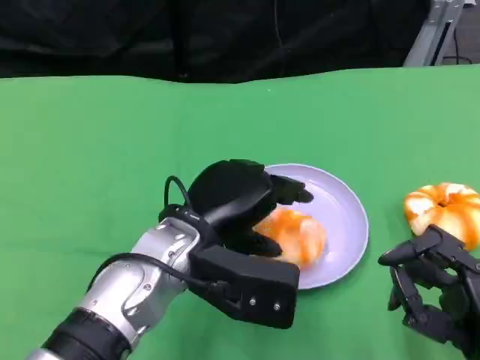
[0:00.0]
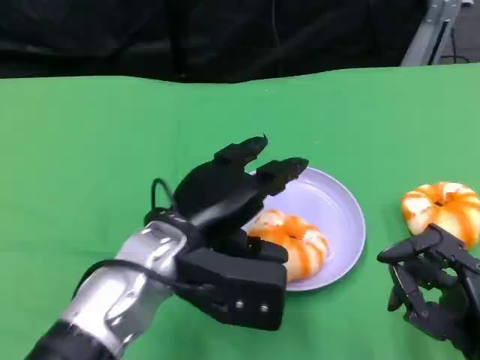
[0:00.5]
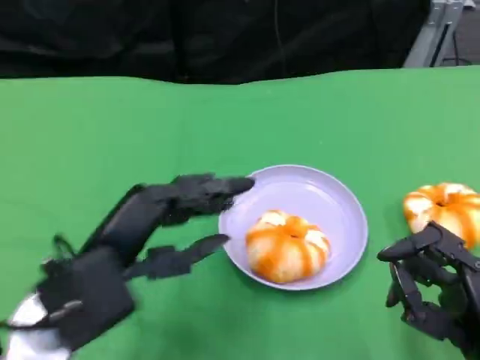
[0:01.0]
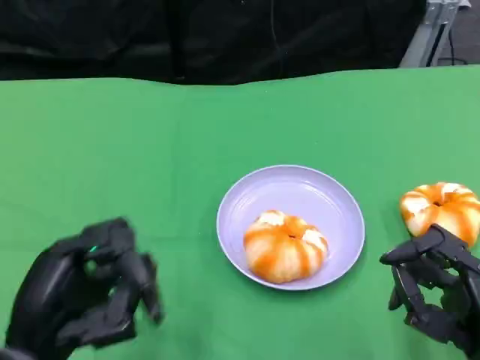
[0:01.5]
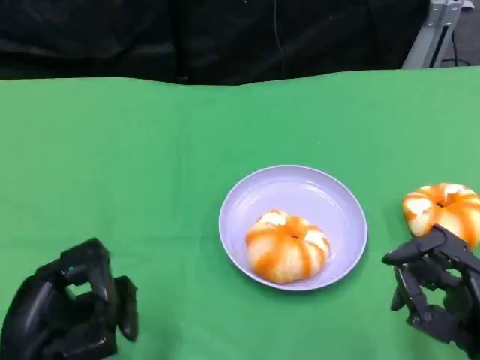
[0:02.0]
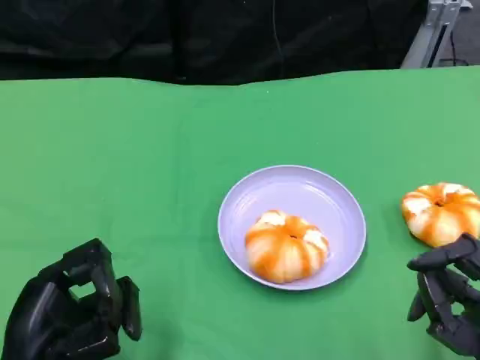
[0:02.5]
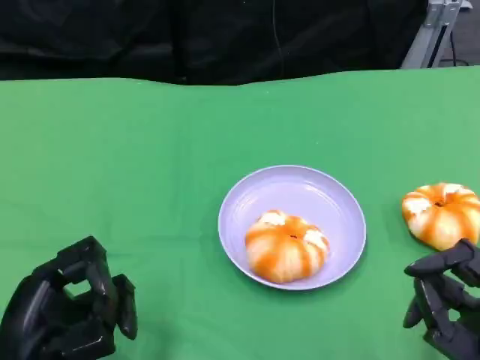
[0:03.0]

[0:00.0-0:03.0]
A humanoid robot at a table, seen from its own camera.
Task of the whole recording: Grasp the bread from the table and place it into the plate.
0:00.0 to 0:01.5: The left hand goes roughly 20 cm to the left and backward.
0:01.5 to 0:03.0: The hands make only small movements.

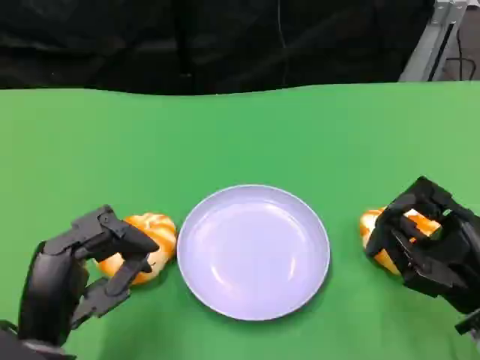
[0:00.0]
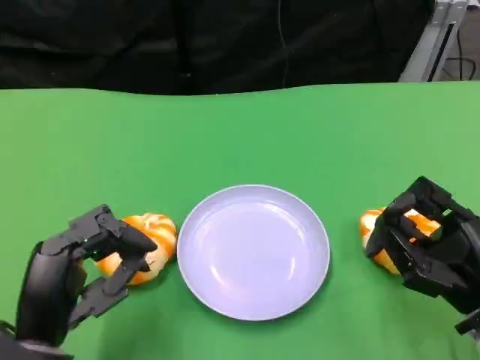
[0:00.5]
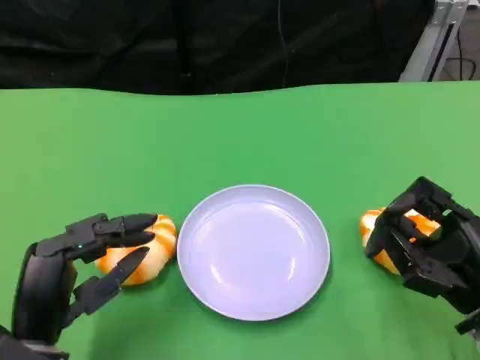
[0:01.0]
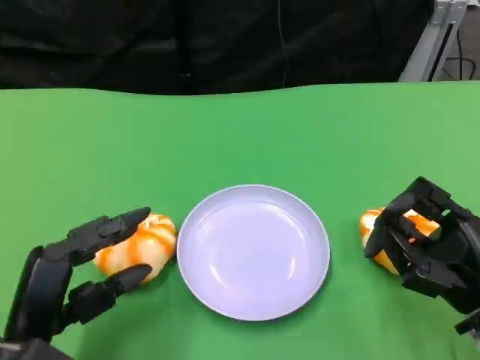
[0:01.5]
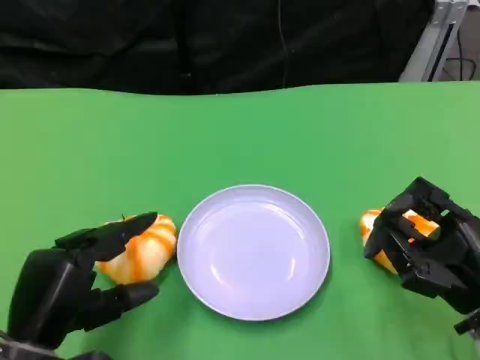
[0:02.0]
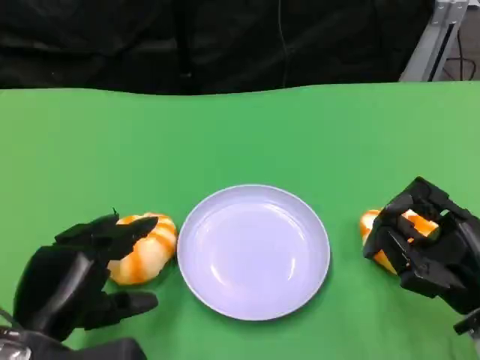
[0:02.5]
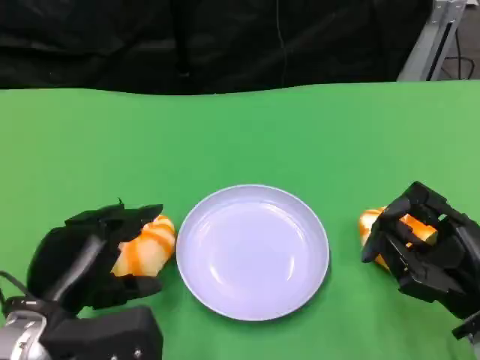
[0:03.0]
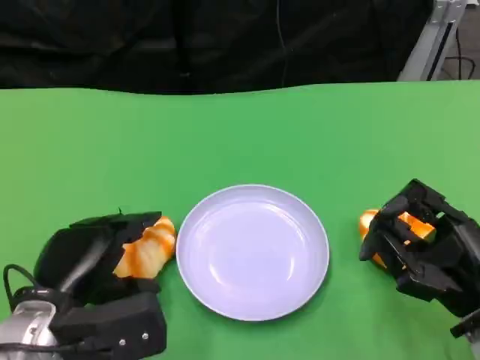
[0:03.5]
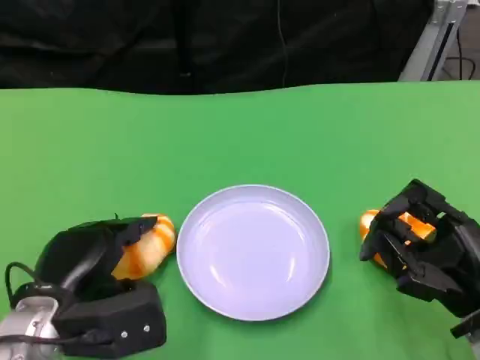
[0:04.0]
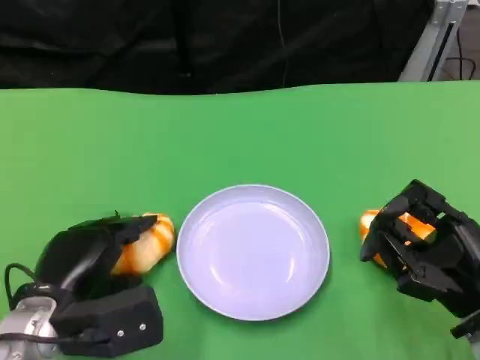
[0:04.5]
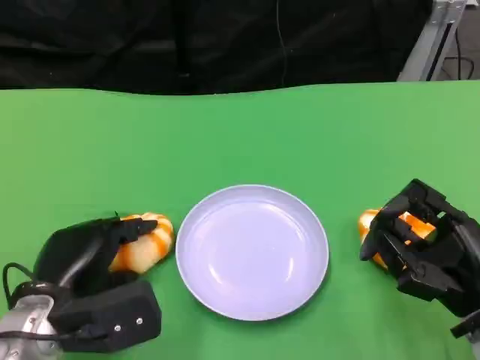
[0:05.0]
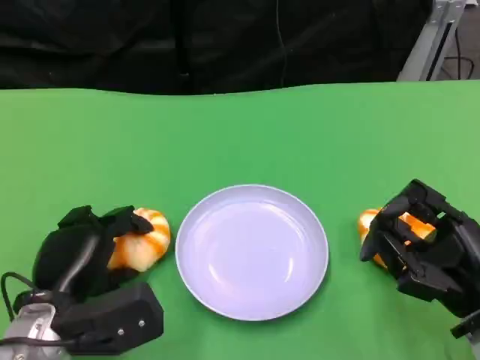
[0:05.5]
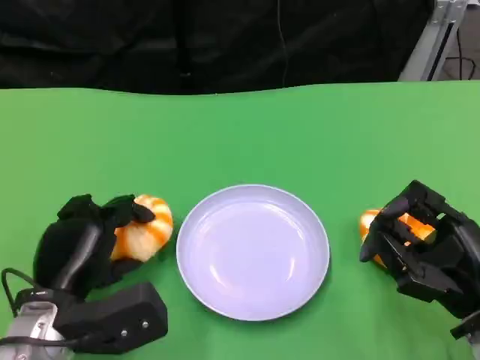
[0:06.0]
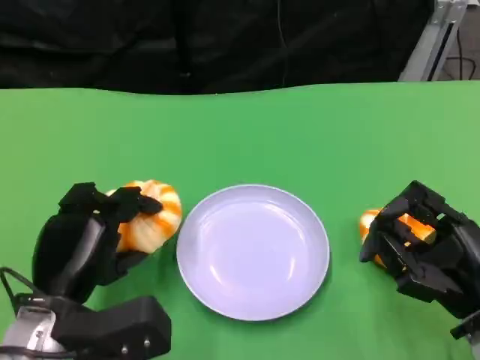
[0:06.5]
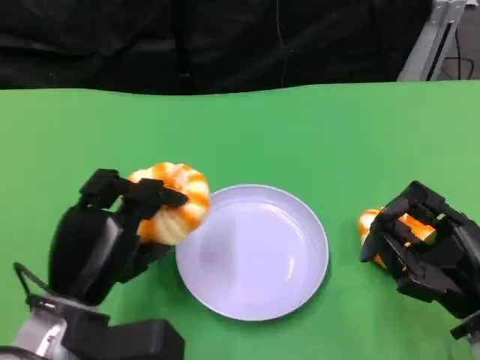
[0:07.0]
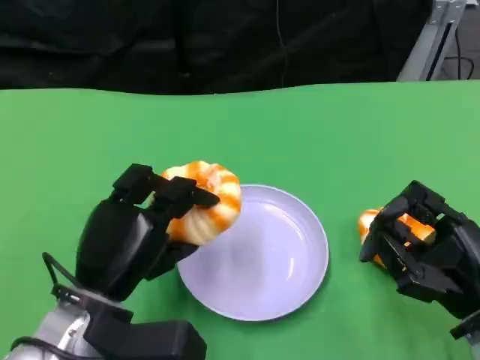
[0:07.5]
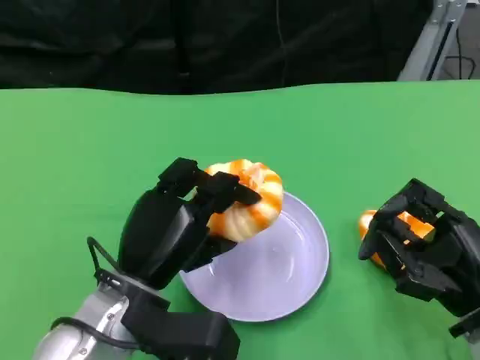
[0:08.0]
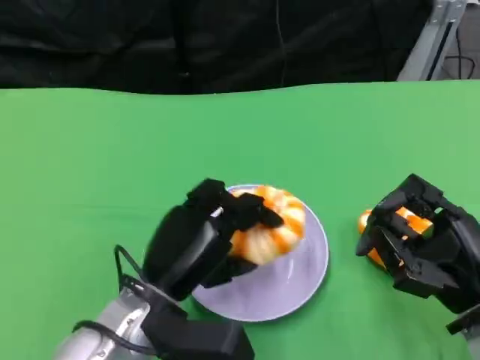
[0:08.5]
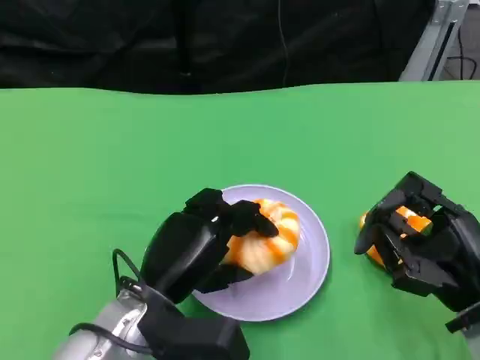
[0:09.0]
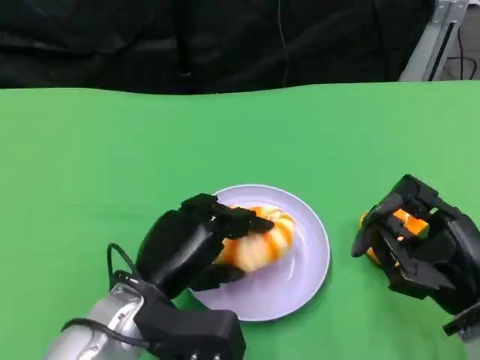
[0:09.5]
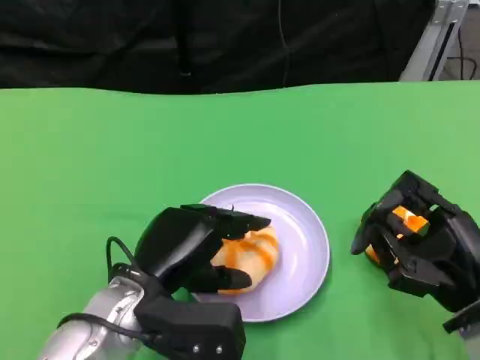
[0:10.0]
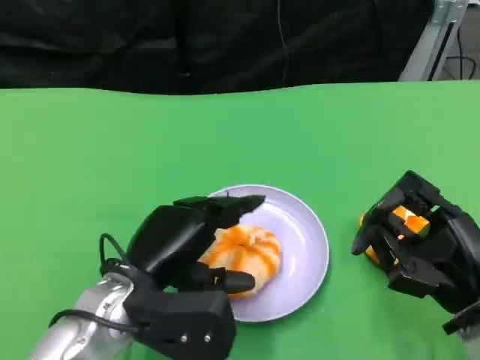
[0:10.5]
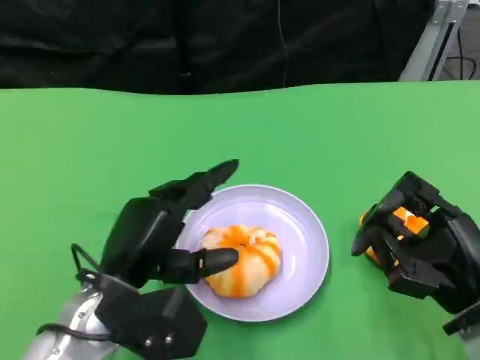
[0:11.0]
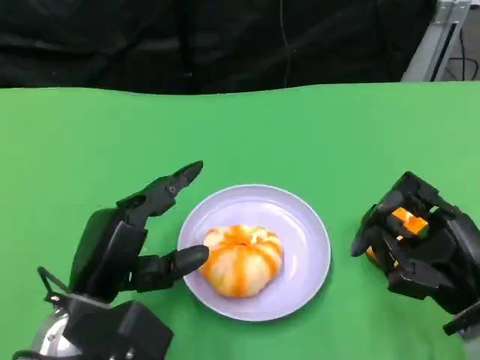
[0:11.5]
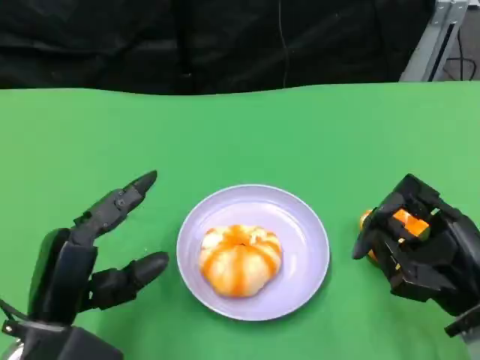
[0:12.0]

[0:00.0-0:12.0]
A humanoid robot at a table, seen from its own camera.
Task of the whole recording: Grasp the bread from the table and place it into the plate.
0:02.0 to 0:04.0: The left hand goes some 5 cm forward.
0:04.0 to 0:06.0: The hands stay close to where they were, moving slightly.
0:06.0 to 0:08.0: The left hand goes some 5 cm to the right.
0:08.0 to 0:10.0: The hands stay close to where they were, moving slightly.
0:10.0 to 0:12.0: The left hand moves to the left, some 10 cm.

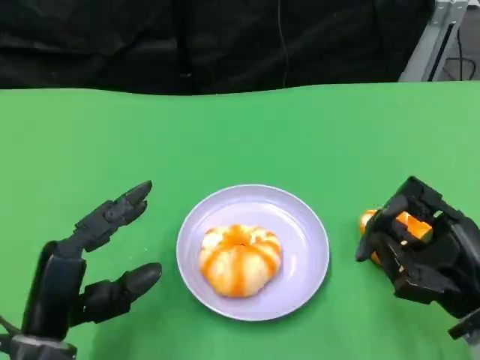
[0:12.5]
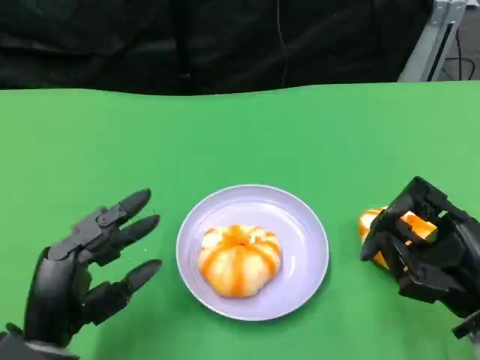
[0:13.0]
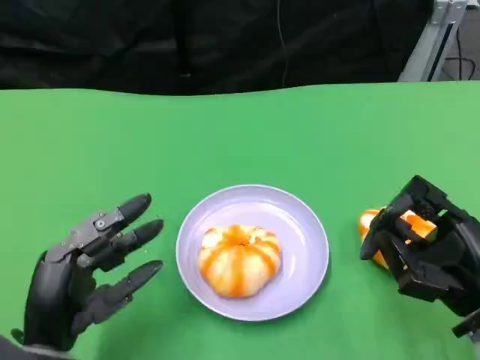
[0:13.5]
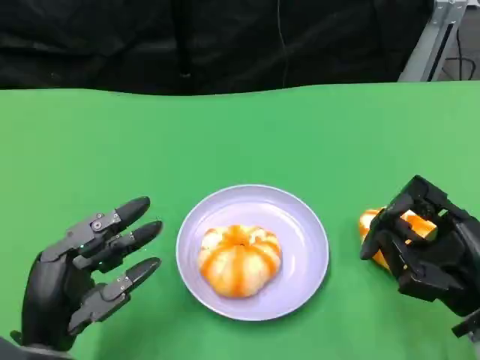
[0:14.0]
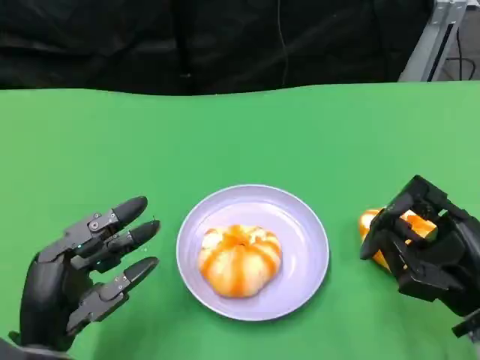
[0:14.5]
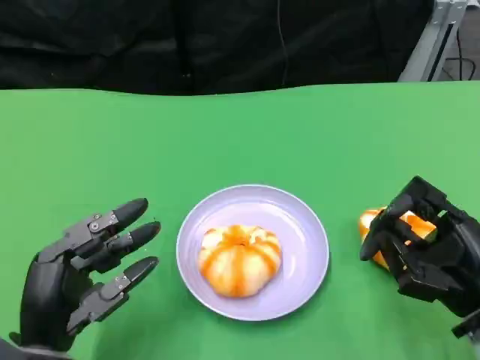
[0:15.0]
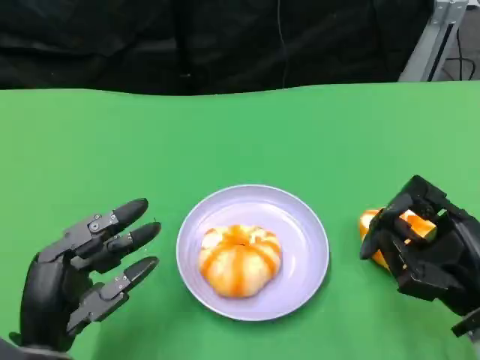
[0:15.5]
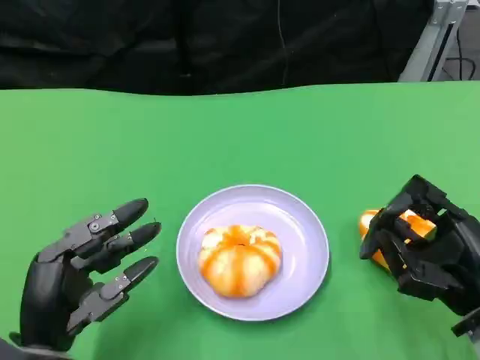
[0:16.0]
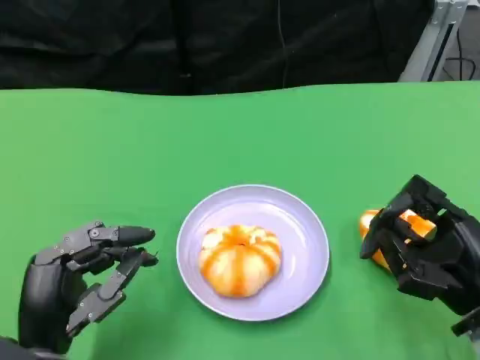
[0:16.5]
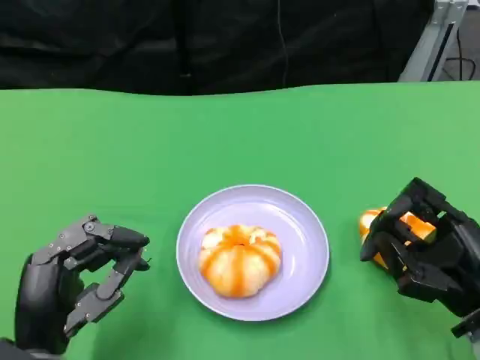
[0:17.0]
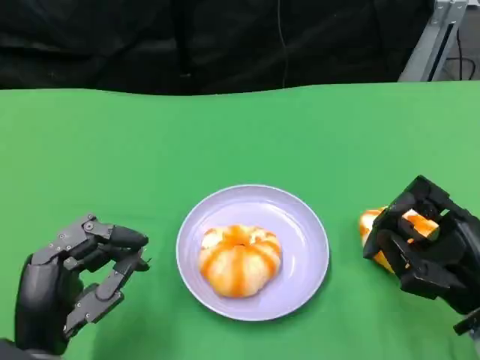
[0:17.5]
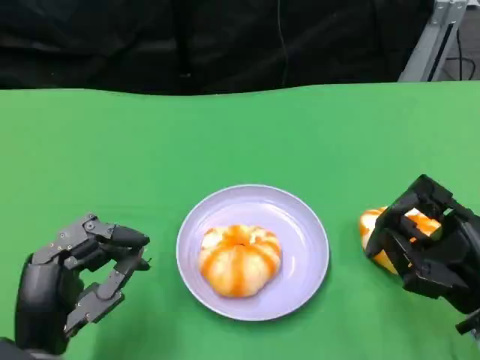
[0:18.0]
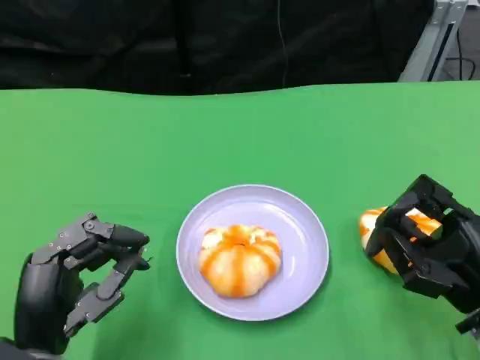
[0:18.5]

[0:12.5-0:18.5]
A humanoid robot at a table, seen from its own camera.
Task of the whole recording: Grasp the bread from the table and place it into the plate.
0:14.5 to 0:16.5: Both hands stay about where they are.
0:16.5 to 0:18.5: Neither hand changes place.

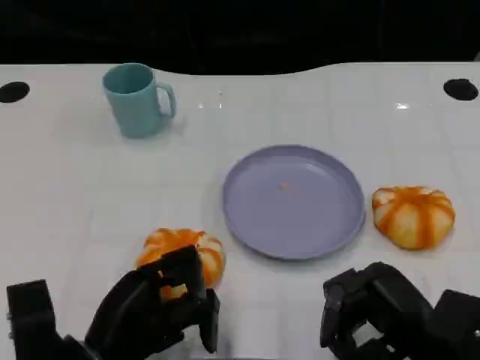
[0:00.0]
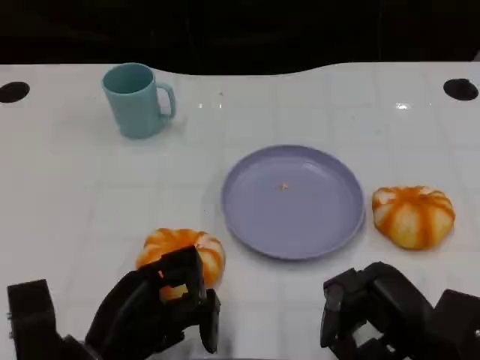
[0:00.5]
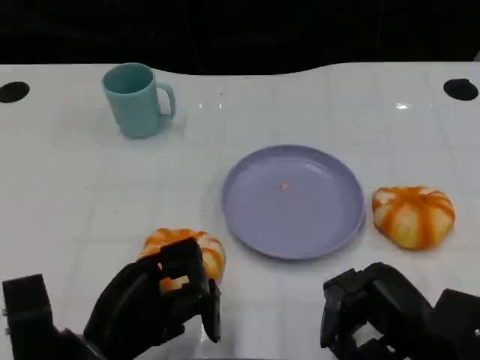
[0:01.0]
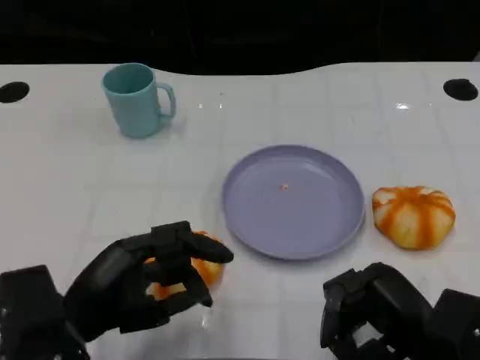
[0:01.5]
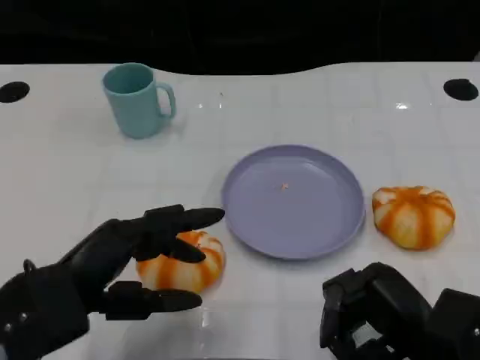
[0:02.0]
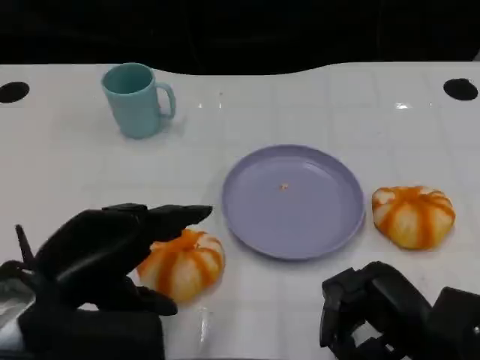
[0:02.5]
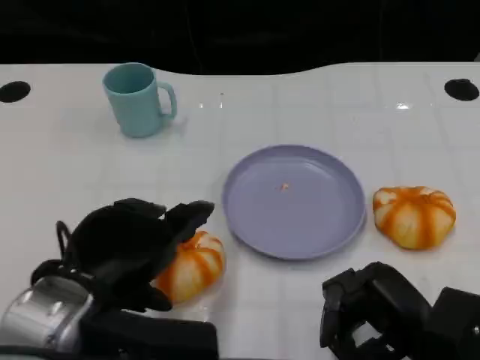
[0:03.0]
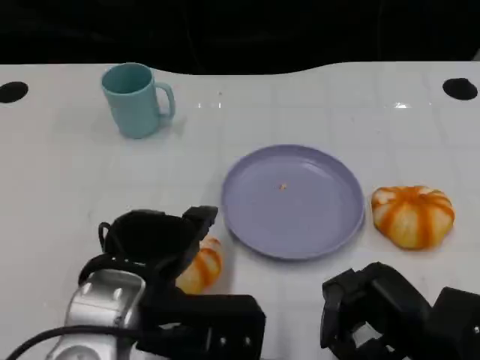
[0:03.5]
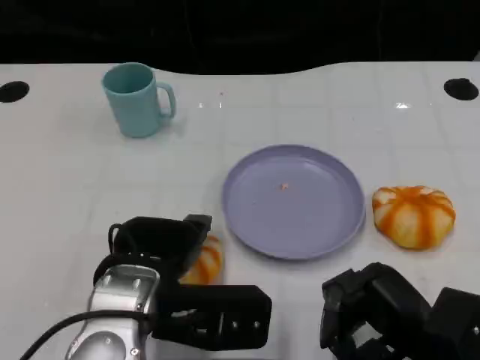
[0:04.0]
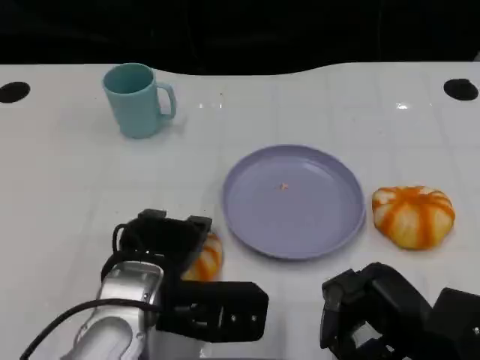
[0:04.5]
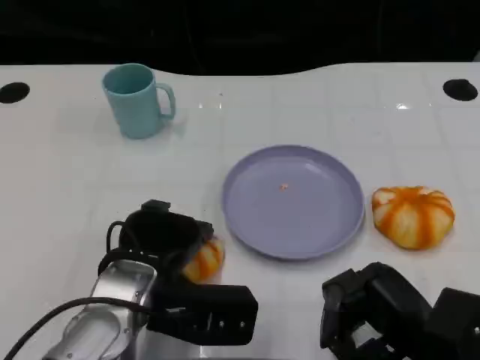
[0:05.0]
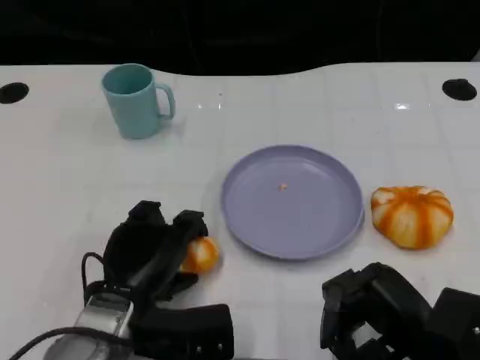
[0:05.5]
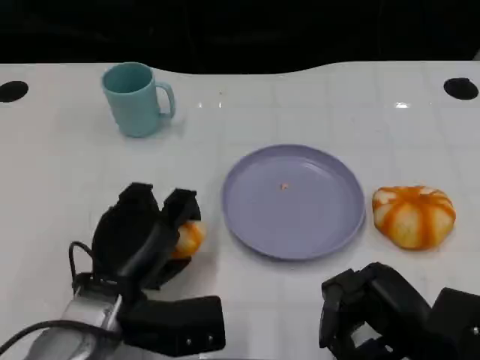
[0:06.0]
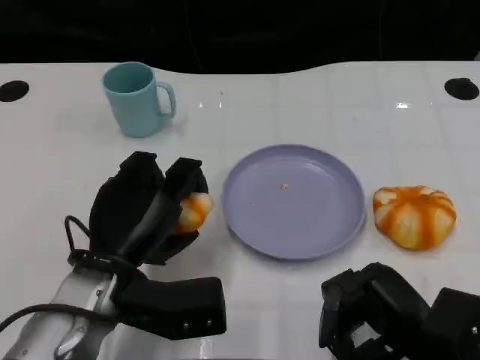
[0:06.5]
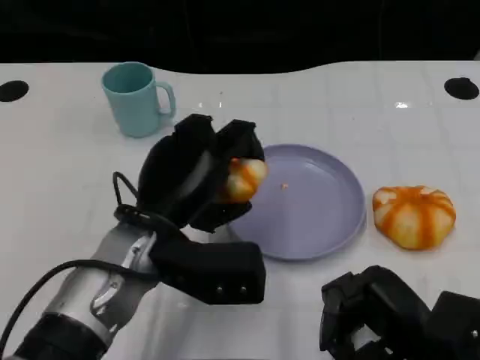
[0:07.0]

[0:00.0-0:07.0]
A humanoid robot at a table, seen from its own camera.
Task of the whole recording: Grasp the bread from the table and place it into the plate.
0:00.0 to 0:02.0: The left hand travels upward by approximately 10 cm.
0:02.0 to 0:03.5: The left hand moves to the right, about 10 cm.
0:03.5 to 0:05.0: The left hand moves downward, about 5 cm.
